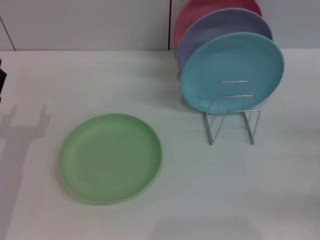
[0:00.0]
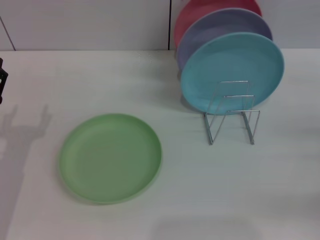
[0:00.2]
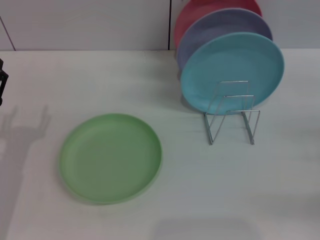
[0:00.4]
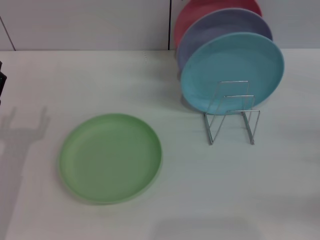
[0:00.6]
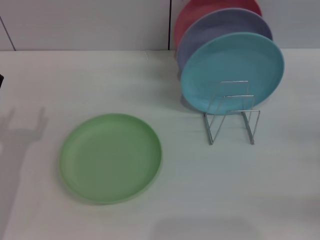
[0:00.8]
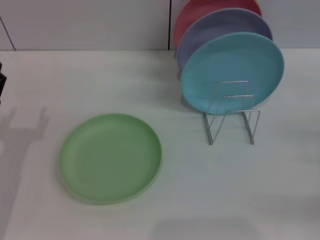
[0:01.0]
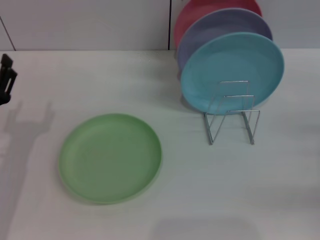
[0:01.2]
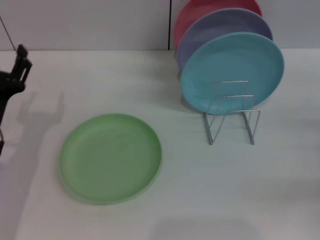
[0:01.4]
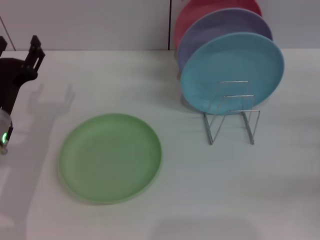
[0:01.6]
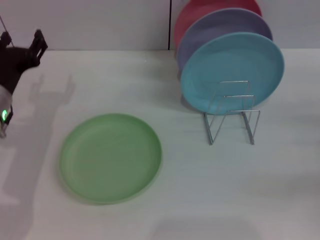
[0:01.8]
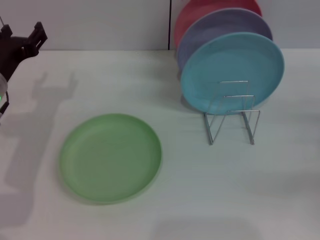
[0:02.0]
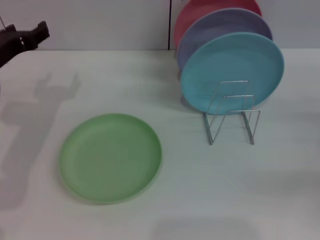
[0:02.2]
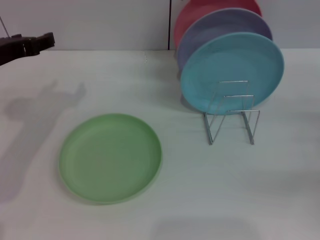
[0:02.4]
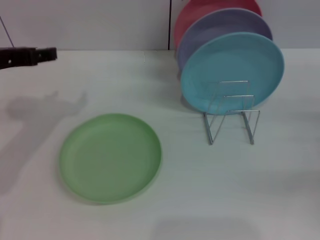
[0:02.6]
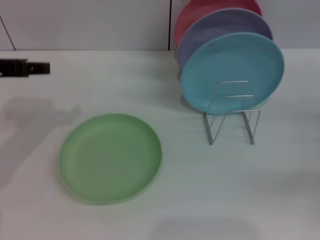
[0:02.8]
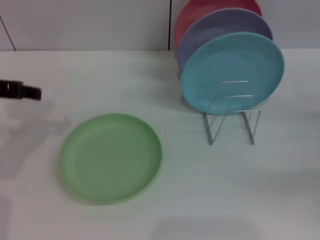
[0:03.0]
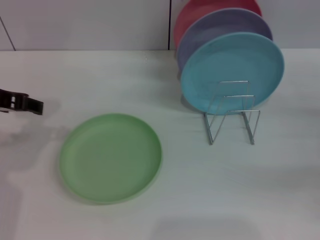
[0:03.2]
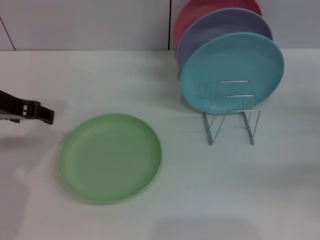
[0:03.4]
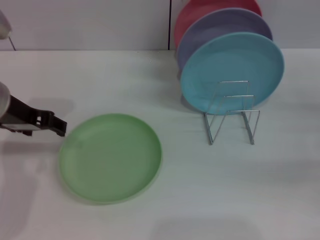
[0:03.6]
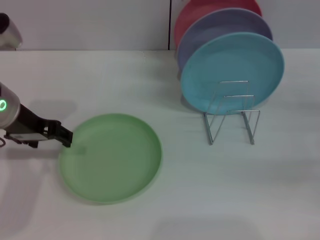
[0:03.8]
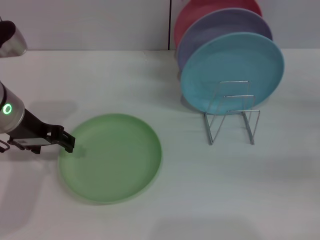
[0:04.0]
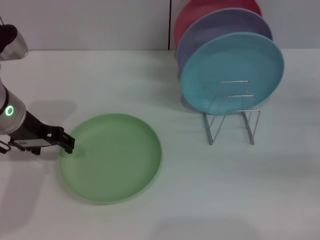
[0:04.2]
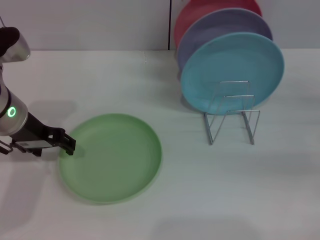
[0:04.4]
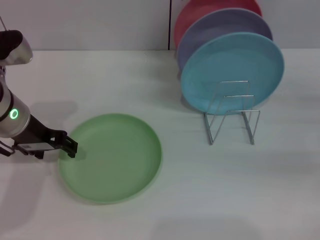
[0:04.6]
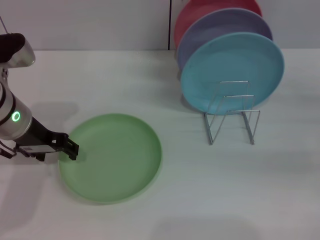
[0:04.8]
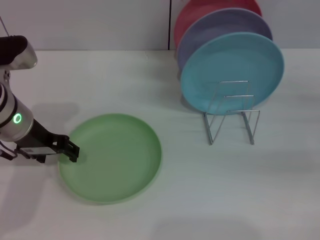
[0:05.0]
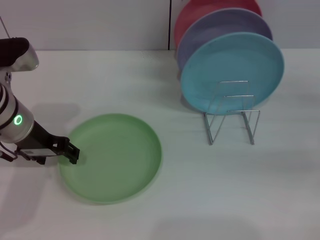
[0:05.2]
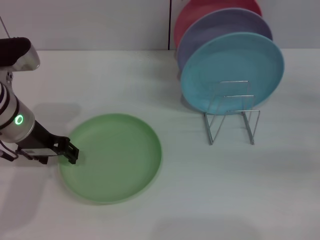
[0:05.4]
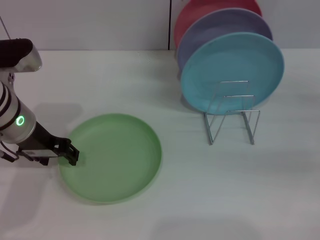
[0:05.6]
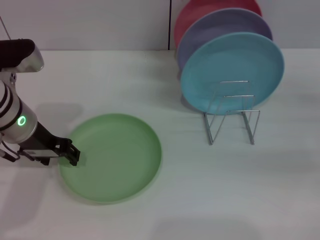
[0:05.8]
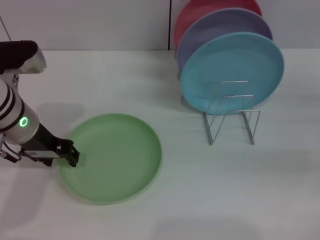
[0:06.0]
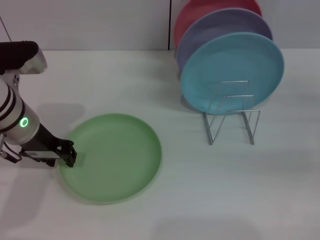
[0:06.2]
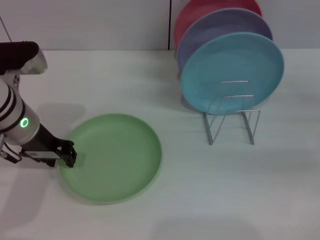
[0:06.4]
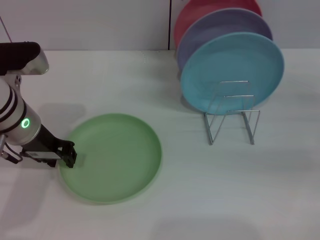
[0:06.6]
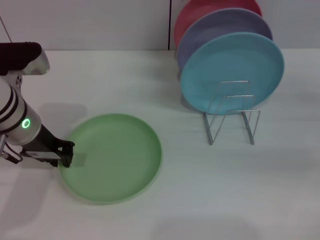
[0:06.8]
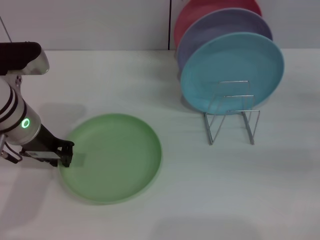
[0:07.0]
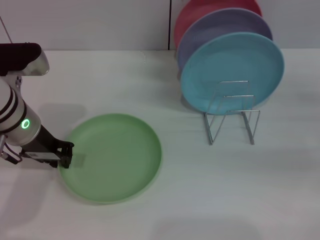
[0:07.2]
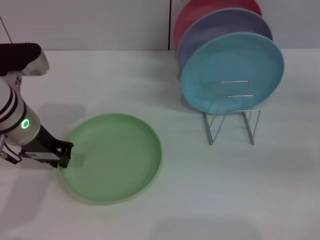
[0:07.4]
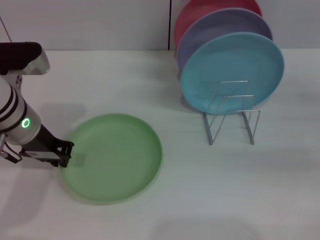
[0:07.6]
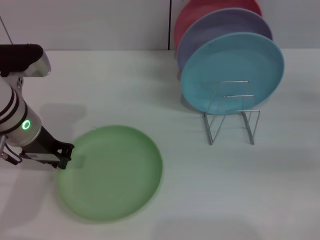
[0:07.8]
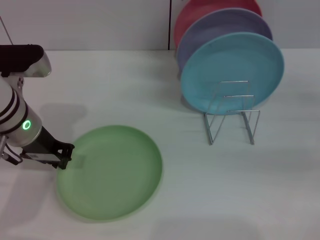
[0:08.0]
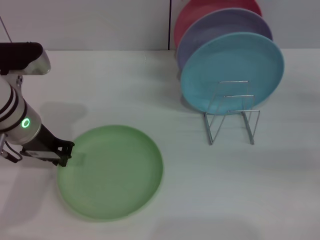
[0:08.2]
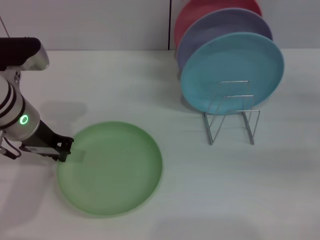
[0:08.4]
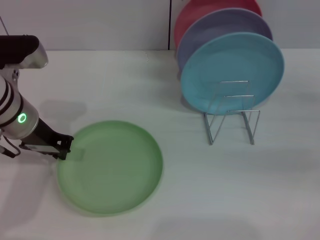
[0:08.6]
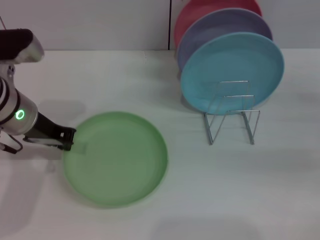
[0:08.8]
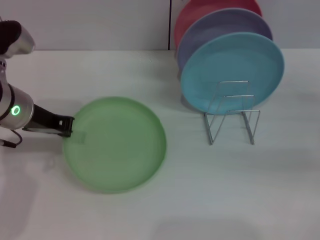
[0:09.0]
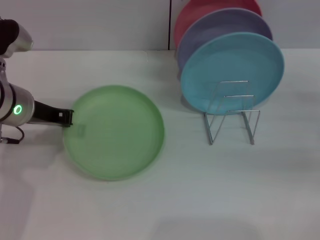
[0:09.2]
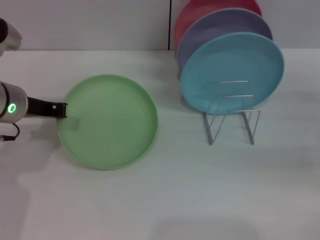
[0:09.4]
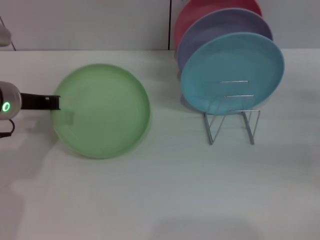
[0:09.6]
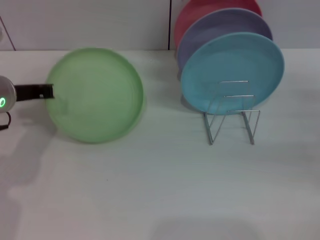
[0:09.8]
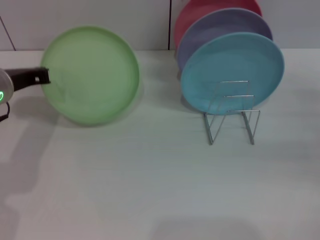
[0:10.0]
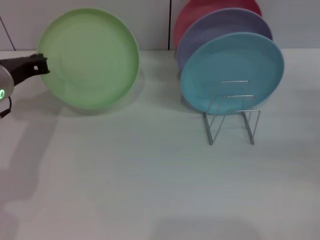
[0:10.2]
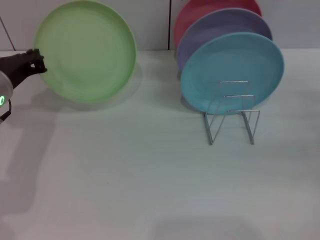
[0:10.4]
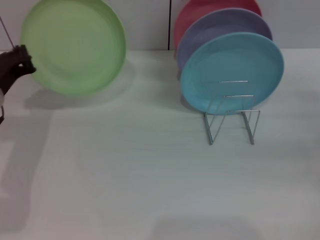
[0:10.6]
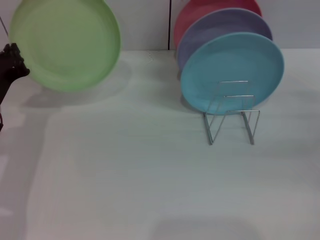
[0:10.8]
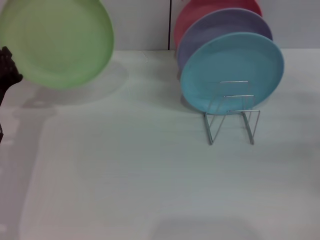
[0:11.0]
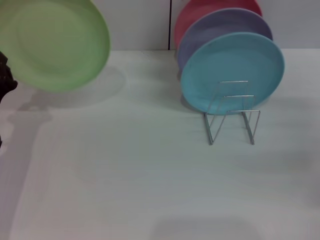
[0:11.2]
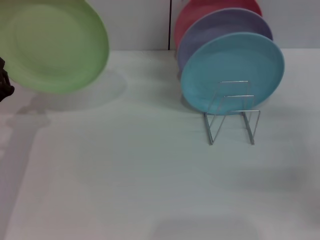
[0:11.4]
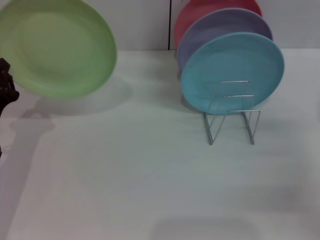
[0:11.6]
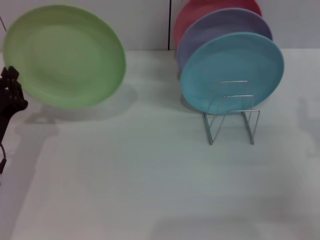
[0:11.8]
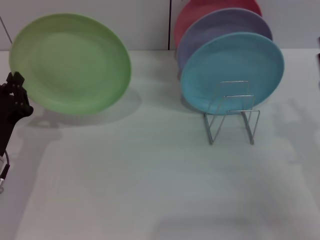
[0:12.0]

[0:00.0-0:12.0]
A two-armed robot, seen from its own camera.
Task of the whole recording: Grip the plate with one hand, pass it to the other, then set it on the shelf.
Step, 0:00.0 to 0:11.0: Pick up the plate with the left gripper.
0:00.0 to 0:01.6: The left gripper travels forward by roughly 5 cm.
0:01.6 to 0:03.0: The left gripper heads upward, covering roughly 15 cm.
0:03.0 to 0:04.4: The left gripper travels downward by roughly 5 cm.
0:04.4 to 0:06.0: The grippers stay close to where they were, moving slightly.
0:06.0 to 0:07.6: The left gripper closes.
0:07.6 to 0:09.0: The grippers stay close to where they were, moving slightly.
0:10.4 to 0:12.0: The left gripper moves backward and downward, about 15 cm, while the right gripper travels to the left and backward by some 15 cm.

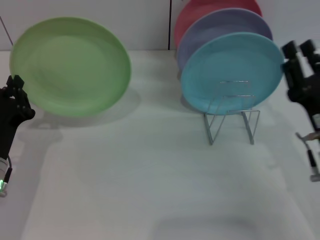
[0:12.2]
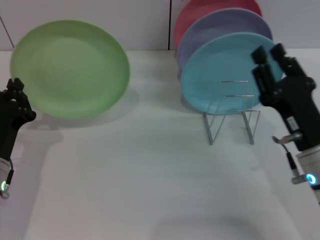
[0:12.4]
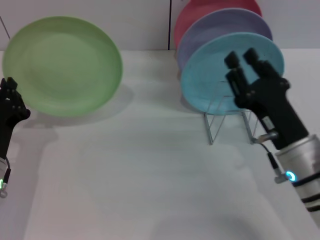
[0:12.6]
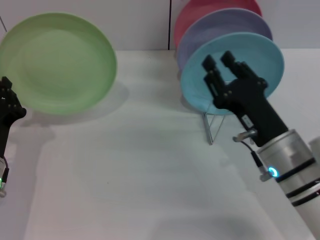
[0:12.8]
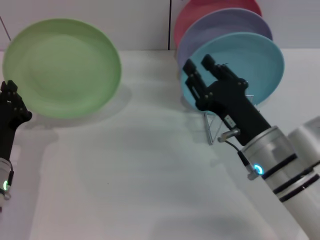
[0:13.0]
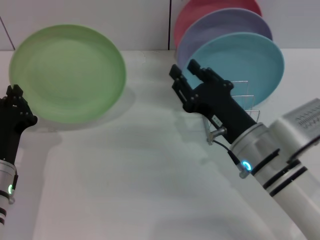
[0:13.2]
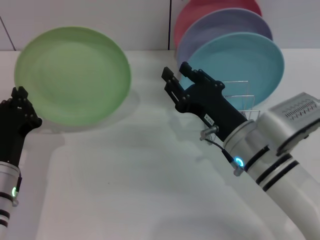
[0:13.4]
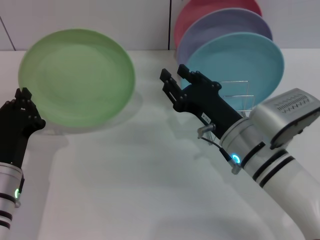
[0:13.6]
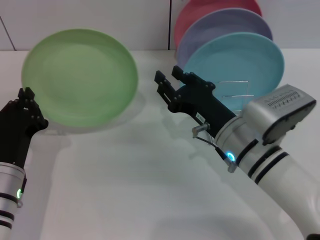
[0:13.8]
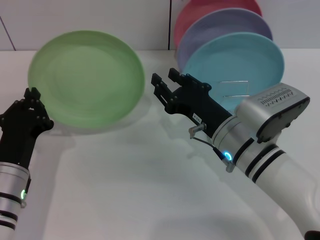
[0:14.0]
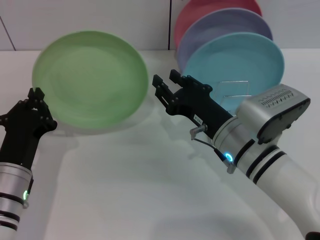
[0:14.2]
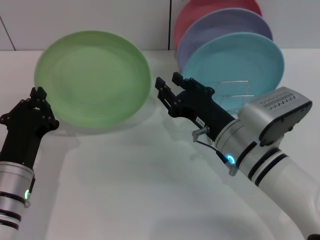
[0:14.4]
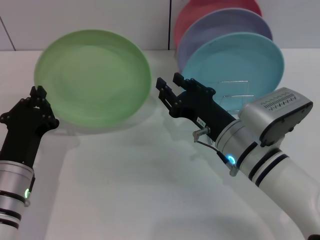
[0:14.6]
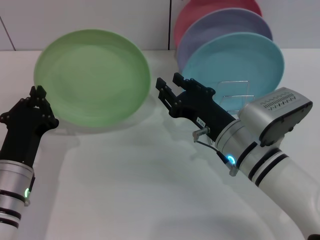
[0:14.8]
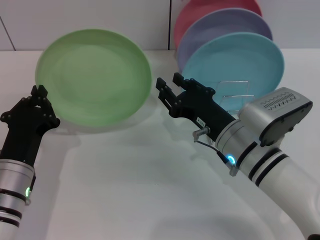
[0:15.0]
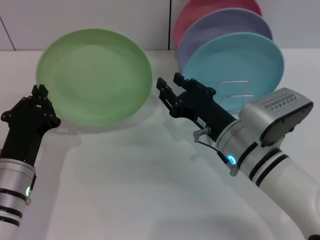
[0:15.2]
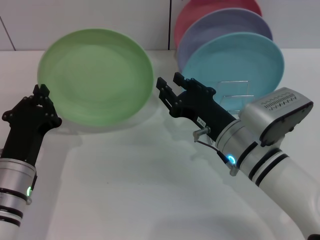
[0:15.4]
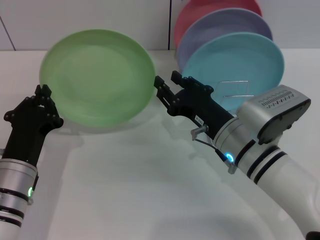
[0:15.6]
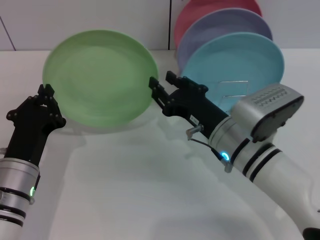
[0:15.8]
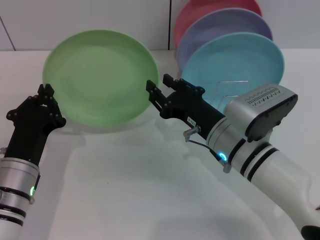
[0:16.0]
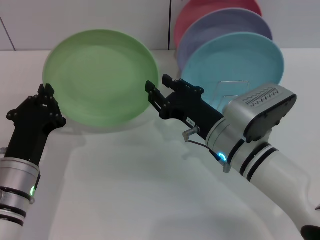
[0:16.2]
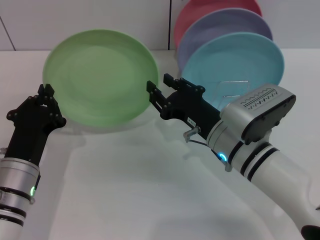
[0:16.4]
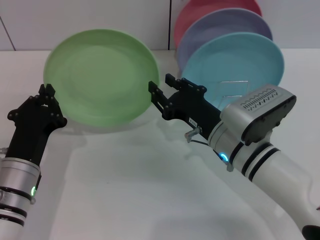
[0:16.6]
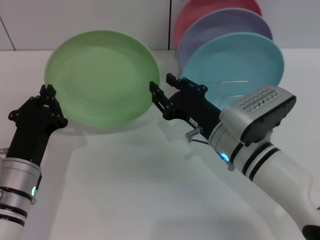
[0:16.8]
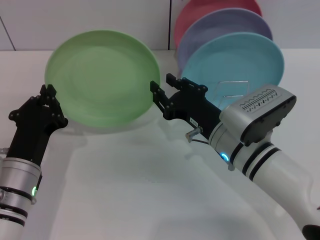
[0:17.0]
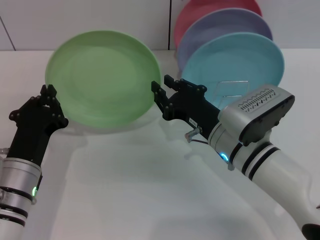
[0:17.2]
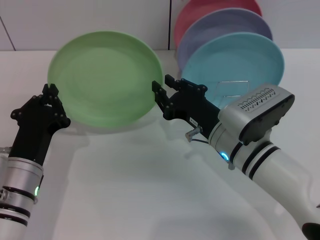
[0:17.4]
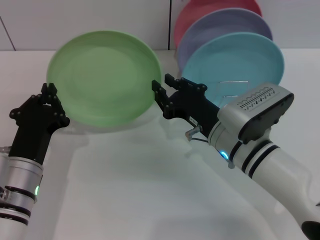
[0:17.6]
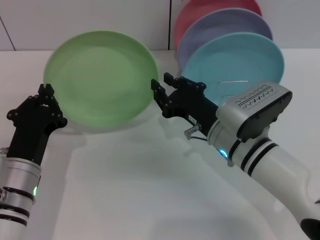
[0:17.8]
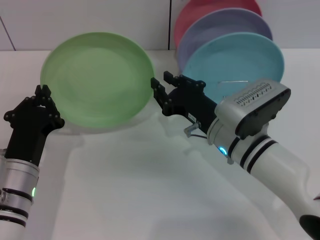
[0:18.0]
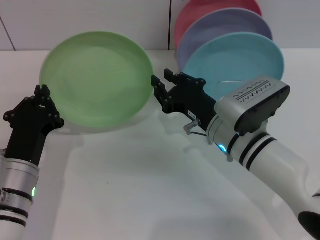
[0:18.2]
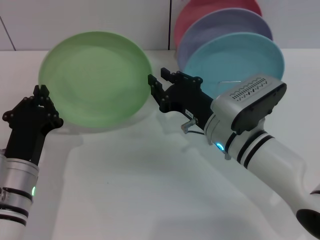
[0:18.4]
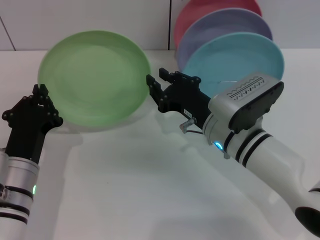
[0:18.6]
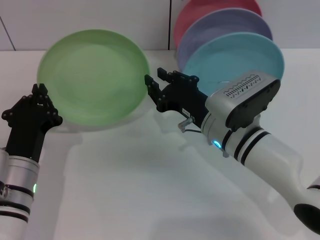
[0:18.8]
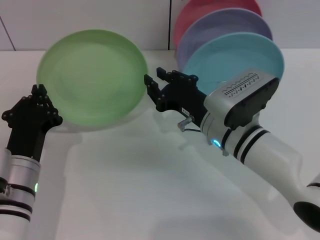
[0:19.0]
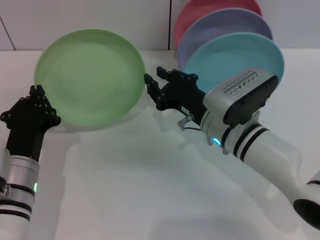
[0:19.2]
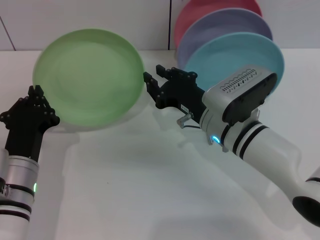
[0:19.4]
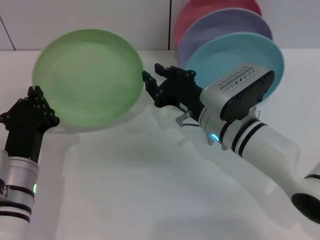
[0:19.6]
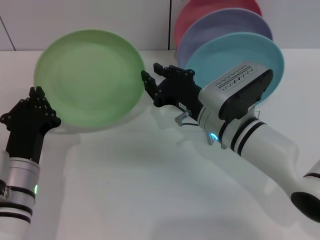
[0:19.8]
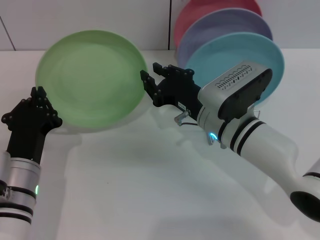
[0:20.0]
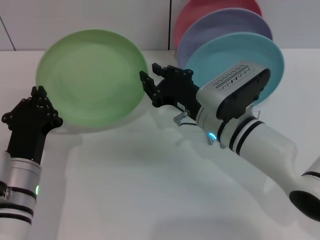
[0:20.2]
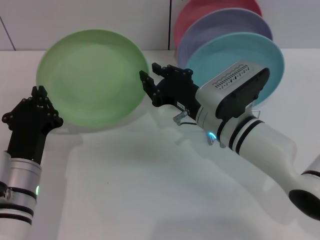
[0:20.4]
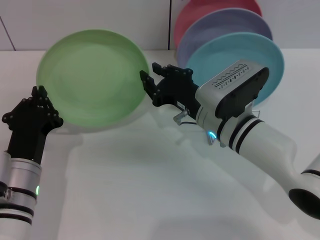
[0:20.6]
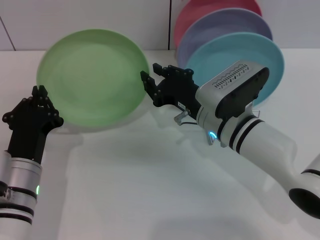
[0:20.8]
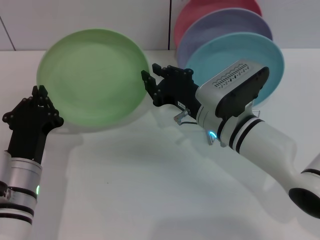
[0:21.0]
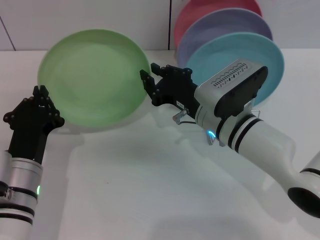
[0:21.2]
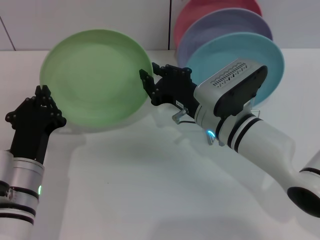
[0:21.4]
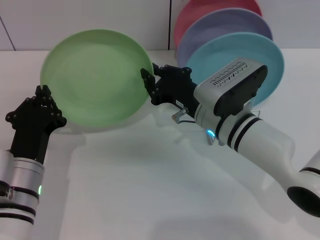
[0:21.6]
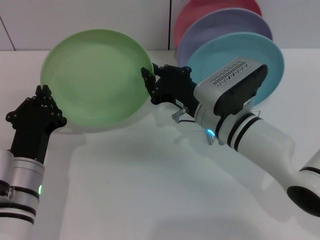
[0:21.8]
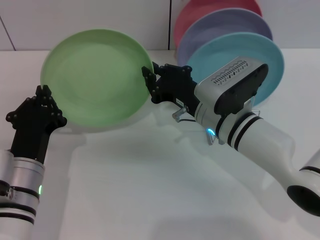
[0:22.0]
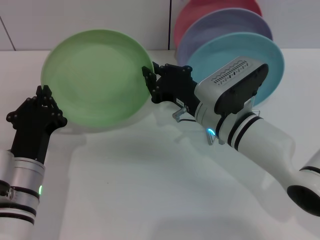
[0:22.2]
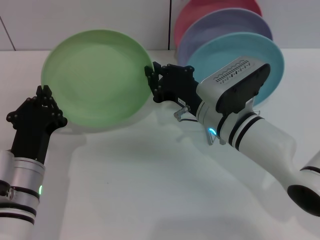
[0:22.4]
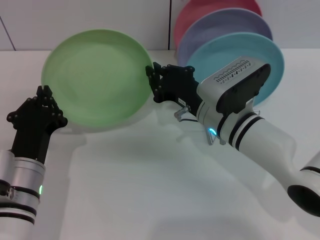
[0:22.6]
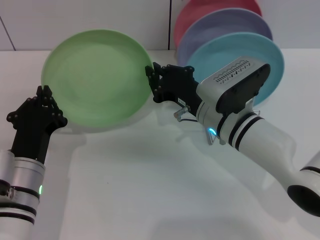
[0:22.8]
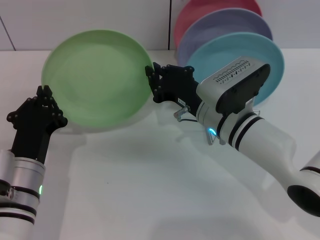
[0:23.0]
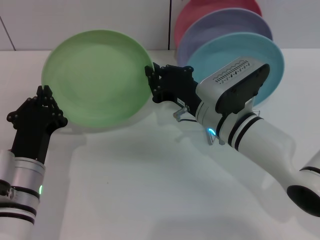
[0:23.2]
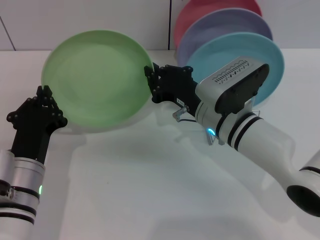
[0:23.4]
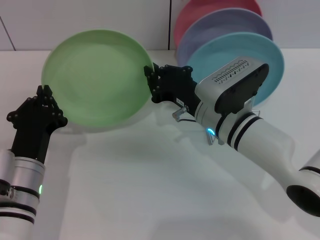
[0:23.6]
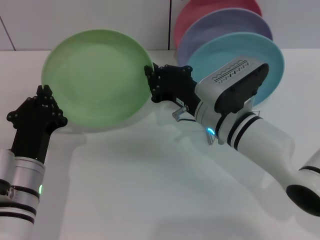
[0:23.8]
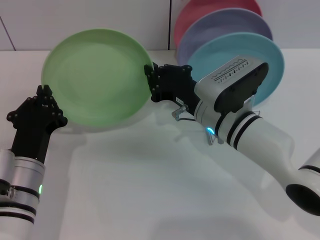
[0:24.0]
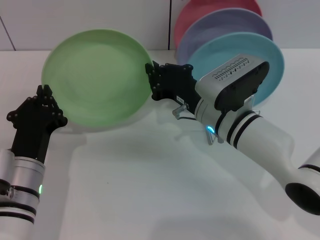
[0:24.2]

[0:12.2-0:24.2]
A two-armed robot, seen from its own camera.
Task of the whole recording: Grip the plate with one hand, pass it to the other, then set it on the shelf.
0:12.2 to 0:13.8: The right gripper heads to the left and forward, covering roughly 10 cm.
0:13.8 to 0:15.2: Both grippers stay put.
0:15.2 to 0:19.8: There are only small adjustments of the grippers.
0:19.8 to 0:24.2: Neither gripper changes place.
